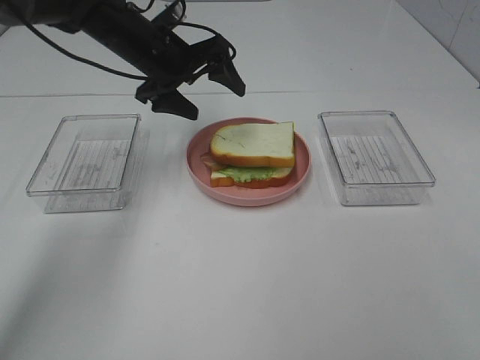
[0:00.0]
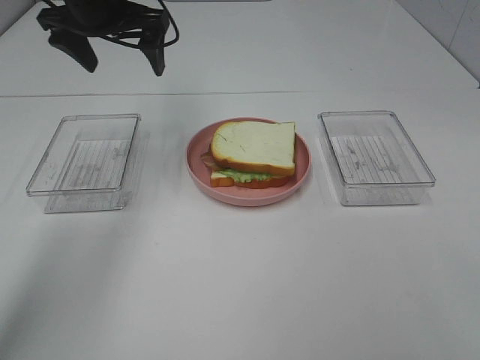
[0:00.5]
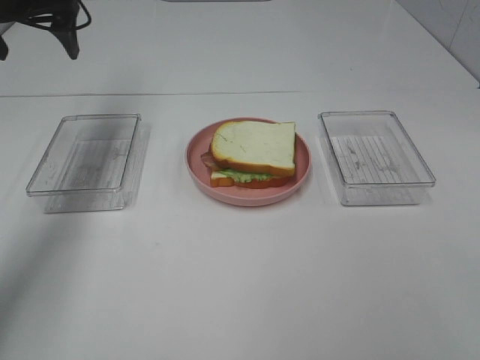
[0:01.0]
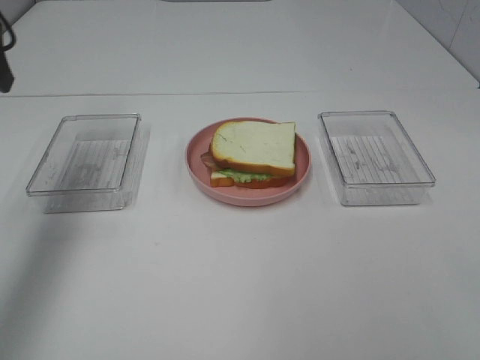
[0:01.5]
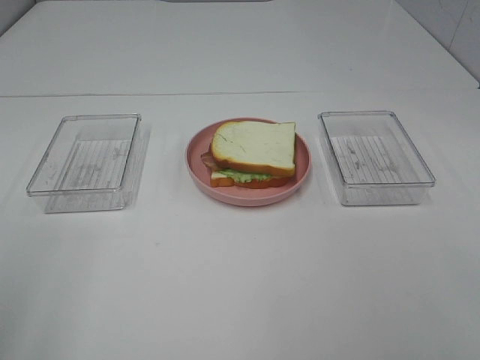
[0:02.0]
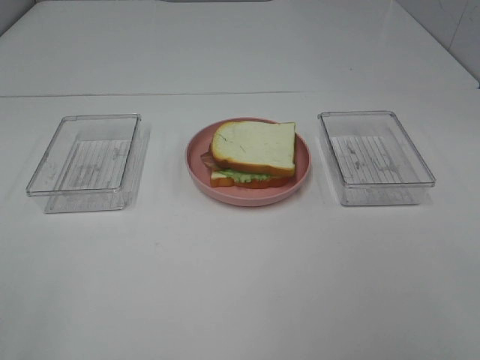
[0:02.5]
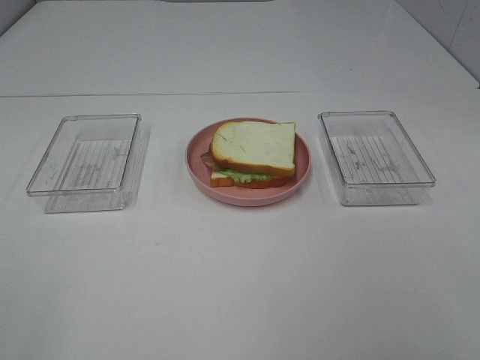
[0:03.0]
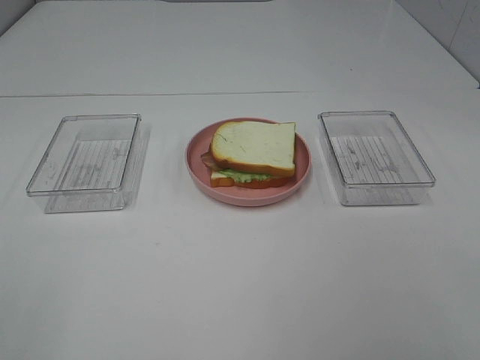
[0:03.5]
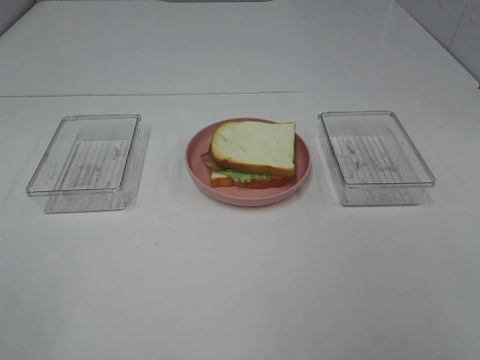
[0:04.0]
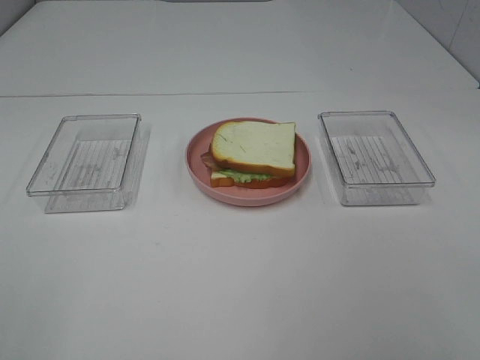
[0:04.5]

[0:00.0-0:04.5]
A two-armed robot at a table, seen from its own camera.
Task of the whole recording: Make sandwiches.
0:00.0 to 0:02.0: The left gripper travels backward and to the left by approximately 50 cm.

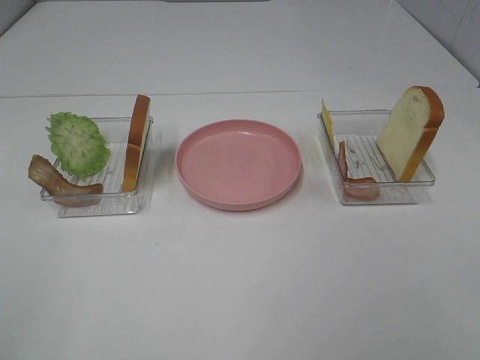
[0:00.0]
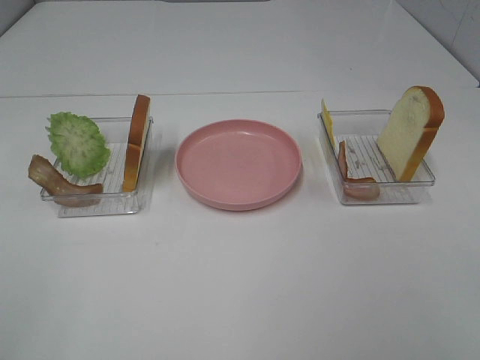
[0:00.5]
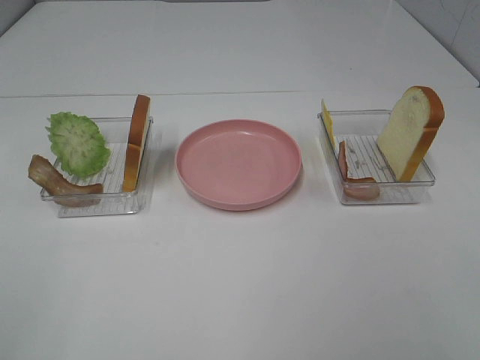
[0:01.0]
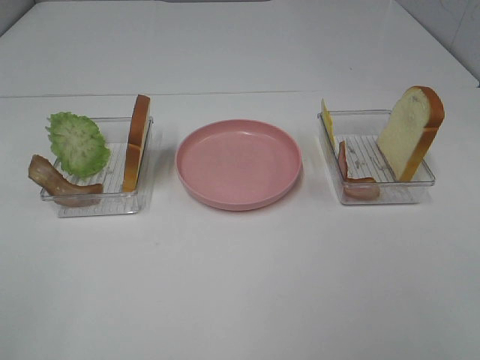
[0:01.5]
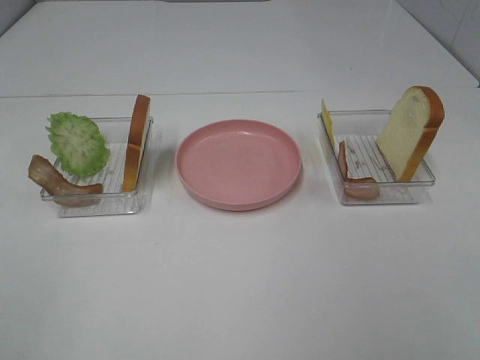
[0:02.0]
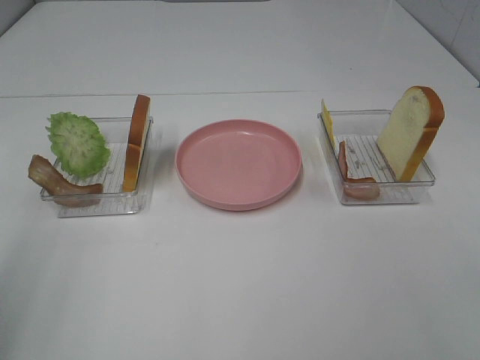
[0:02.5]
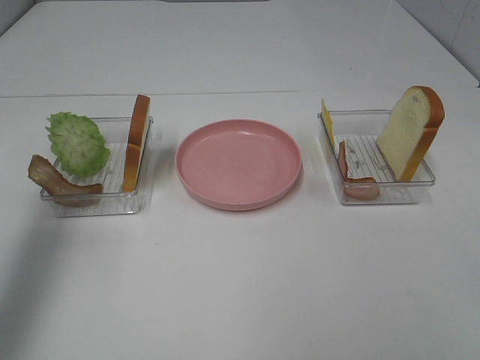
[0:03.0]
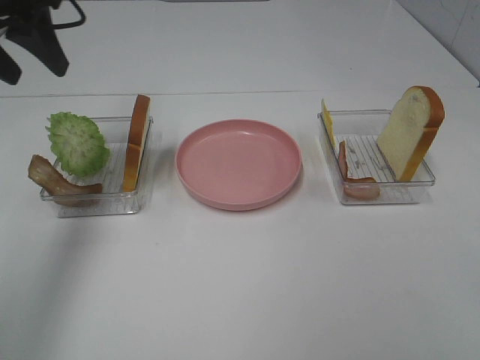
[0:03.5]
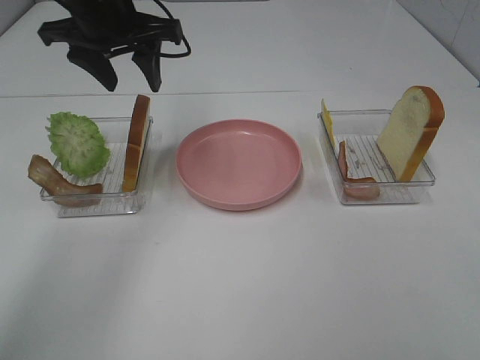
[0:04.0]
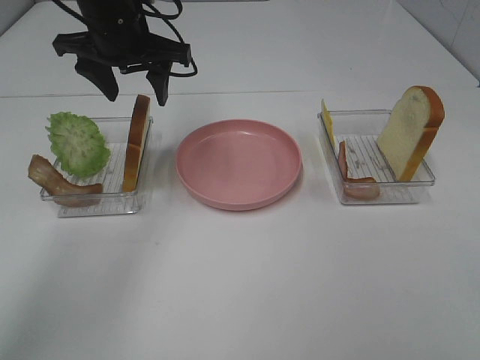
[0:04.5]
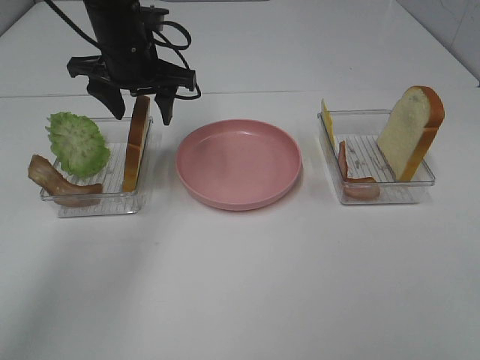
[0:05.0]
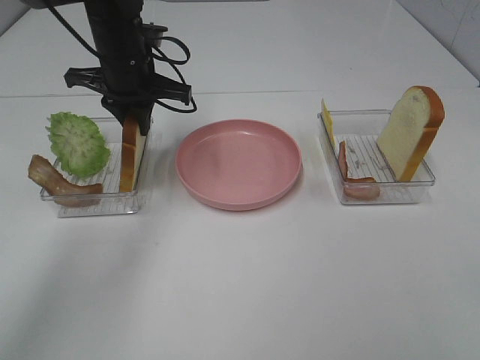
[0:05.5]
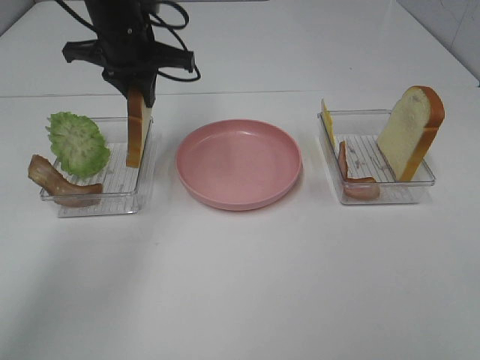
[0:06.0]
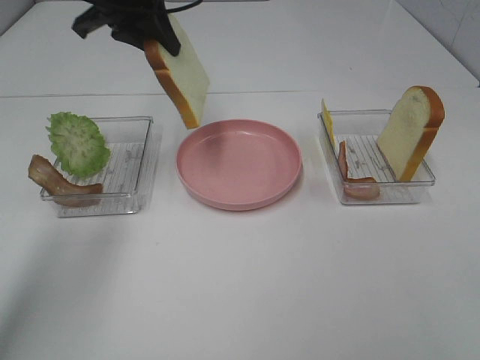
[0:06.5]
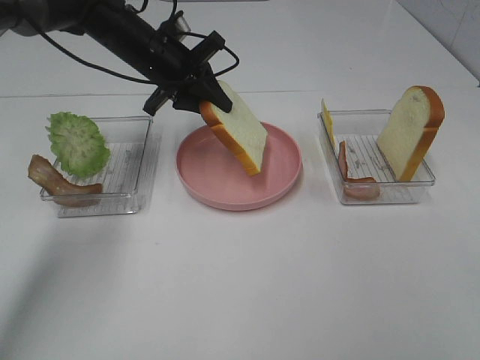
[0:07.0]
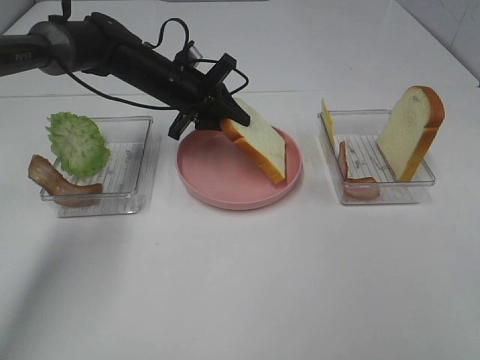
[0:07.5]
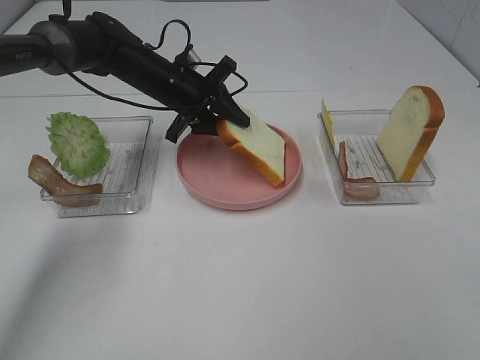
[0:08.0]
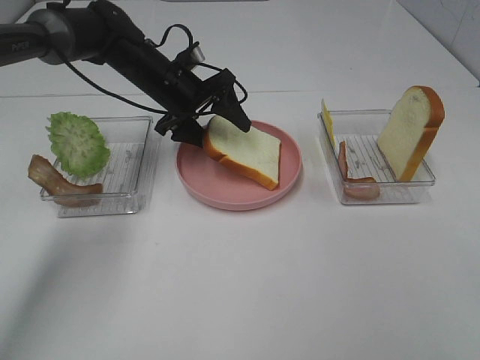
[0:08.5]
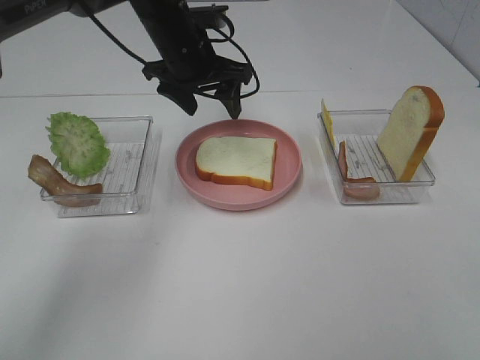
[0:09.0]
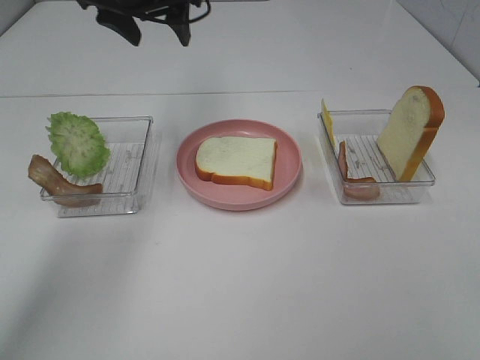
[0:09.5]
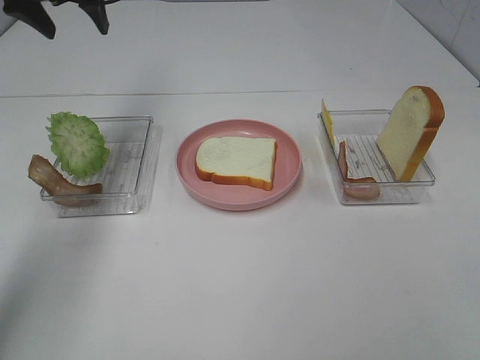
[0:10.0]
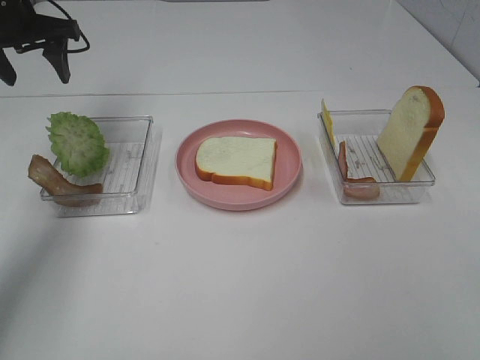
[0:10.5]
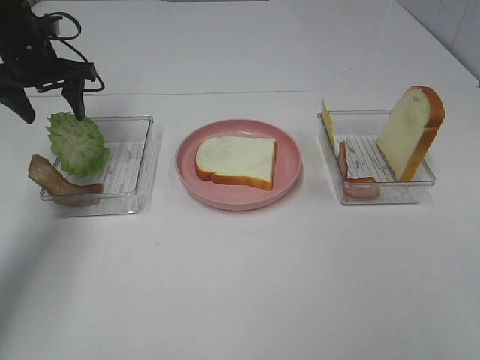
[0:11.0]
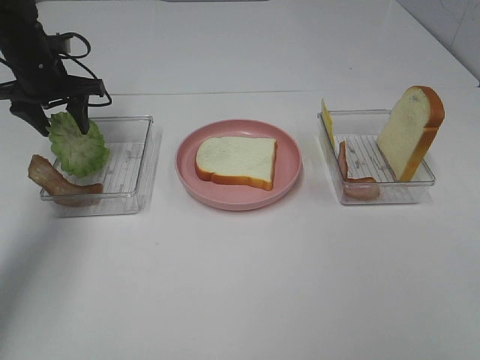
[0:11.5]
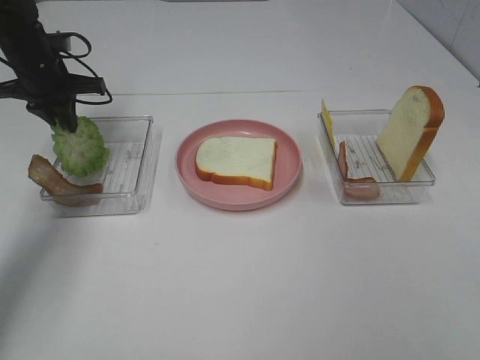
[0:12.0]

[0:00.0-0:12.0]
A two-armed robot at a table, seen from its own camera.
Task of the whole recording: Make sandwiches.
Step, 0:00.0 to 0:05.5: Left hand:grab the bread slice.
Step, 0:06.0 to 0:09.0: Left hand:place the bread slice on the plate.
0:02.0 to 0:04.0: The left gripper goes approximately 40 cm forward.
0:04.0 to 0:06.0: The left gripper reaches some 10 cm downward, then returns, and closes.
0:06.0 to 0:08.0: The left gripper moves downward, approximately 10 cm.
0:08.0 to 0:10.0: The left gripper goes about 20 cm upward and to the left, and opens its fingers.
0:10.0 to 0:12.0: The left gripper moves downward, about 15 cm, and closes up.

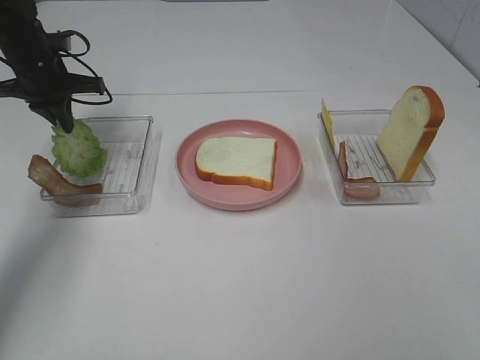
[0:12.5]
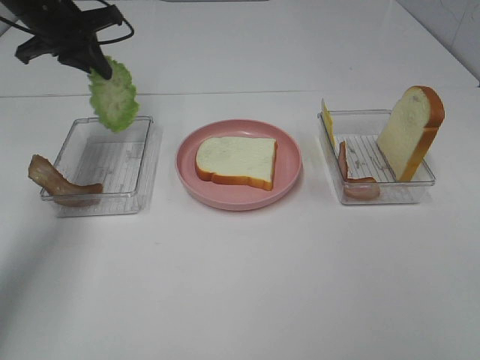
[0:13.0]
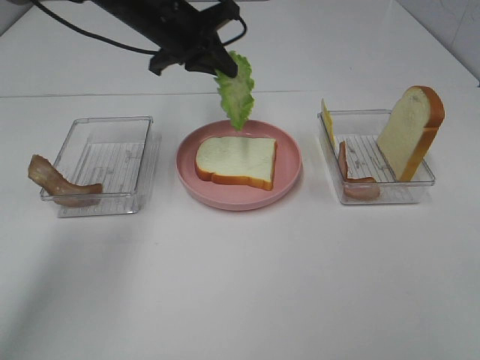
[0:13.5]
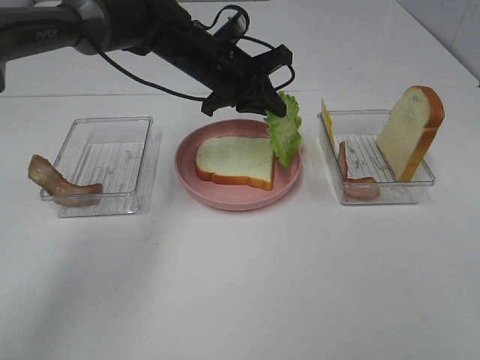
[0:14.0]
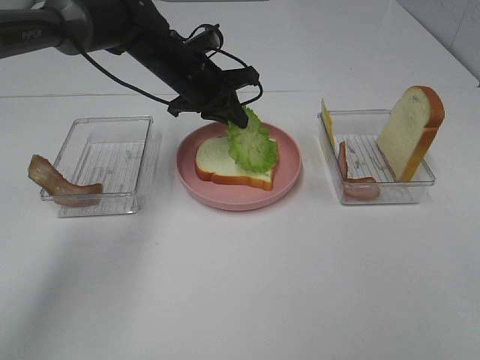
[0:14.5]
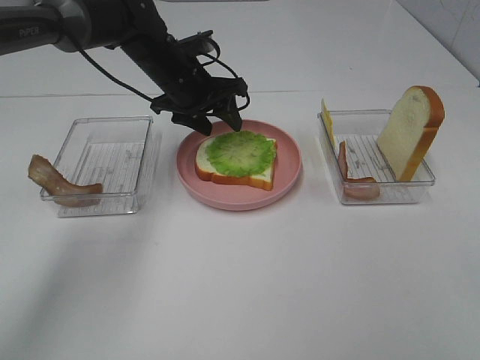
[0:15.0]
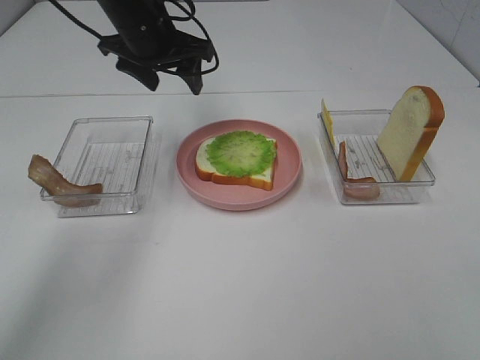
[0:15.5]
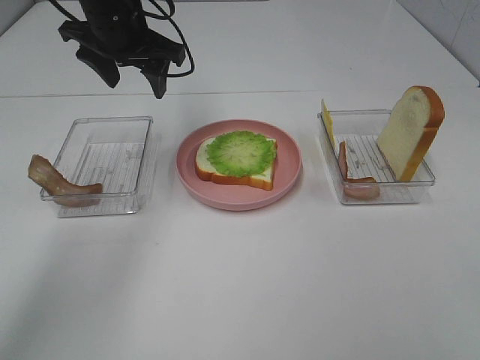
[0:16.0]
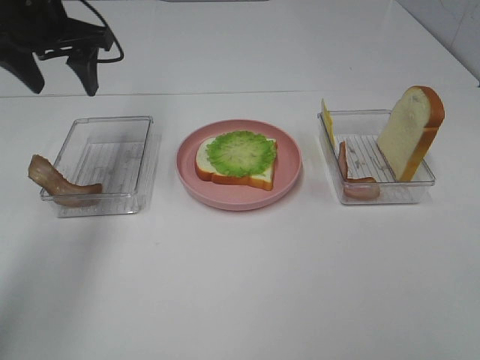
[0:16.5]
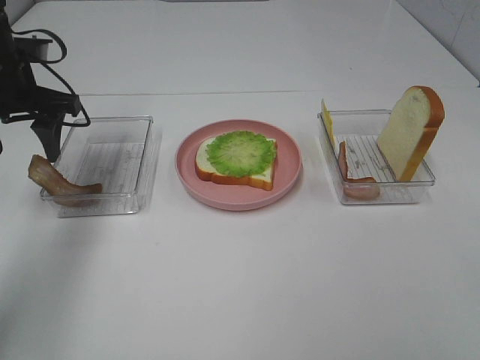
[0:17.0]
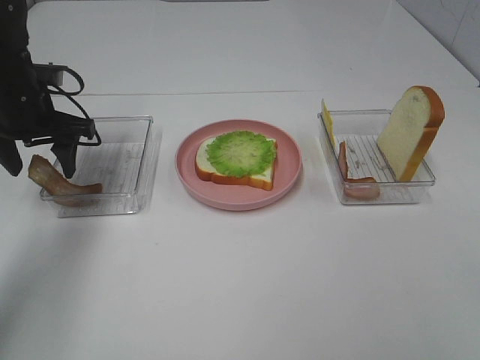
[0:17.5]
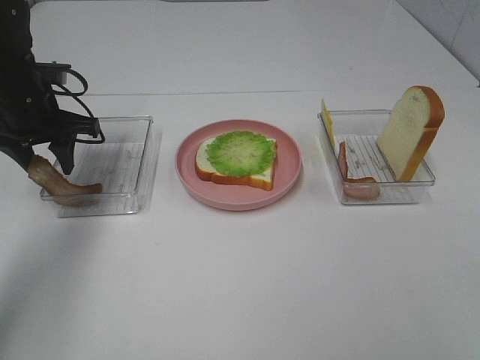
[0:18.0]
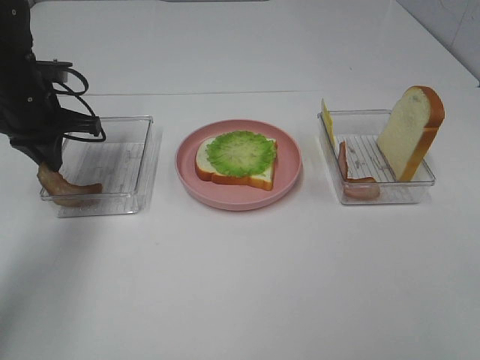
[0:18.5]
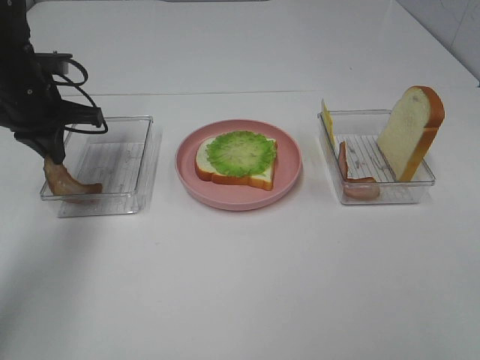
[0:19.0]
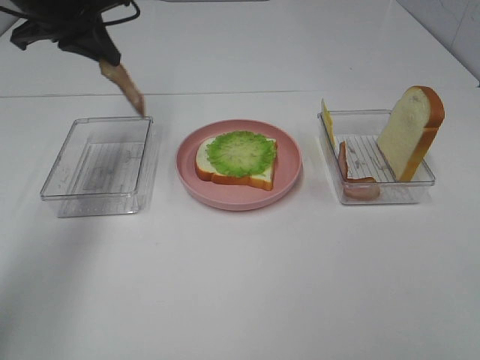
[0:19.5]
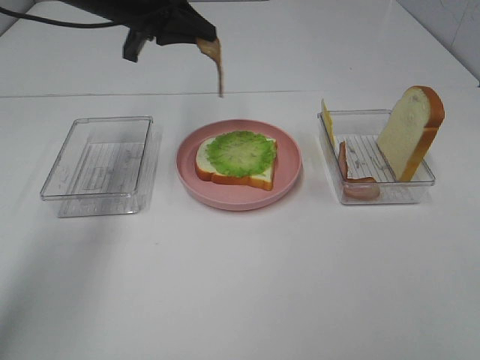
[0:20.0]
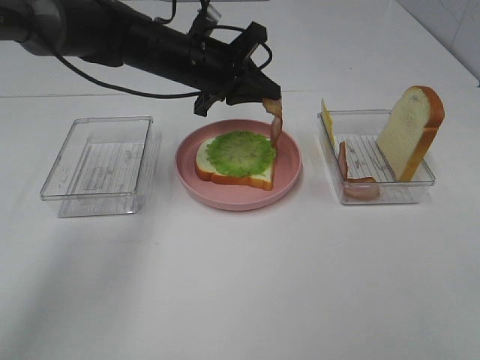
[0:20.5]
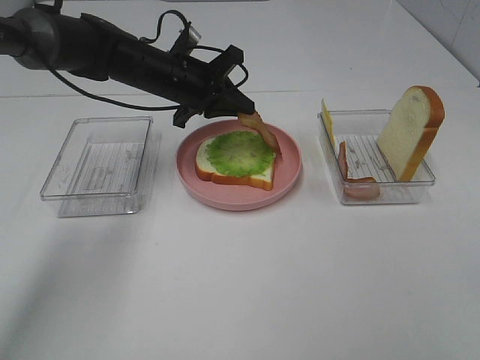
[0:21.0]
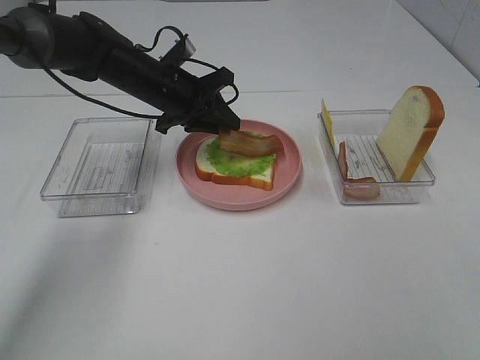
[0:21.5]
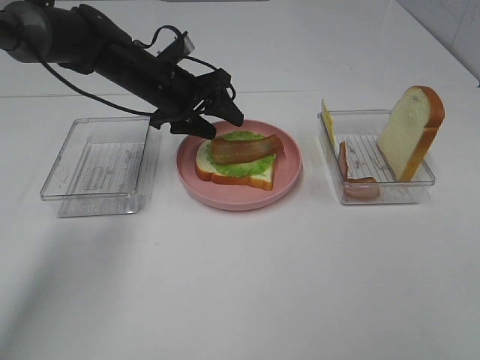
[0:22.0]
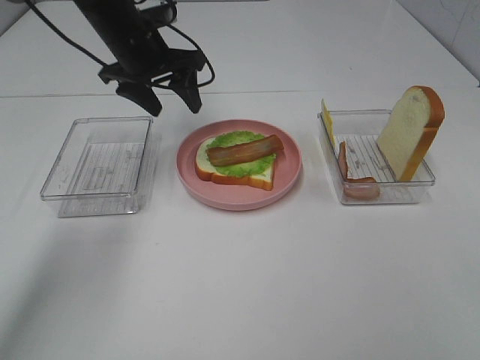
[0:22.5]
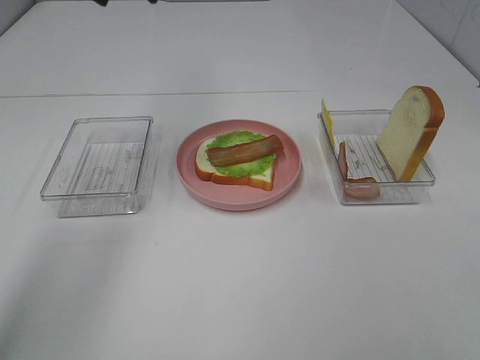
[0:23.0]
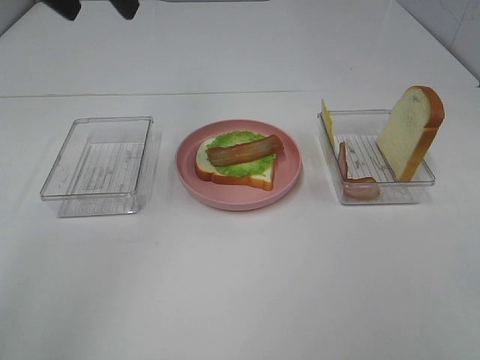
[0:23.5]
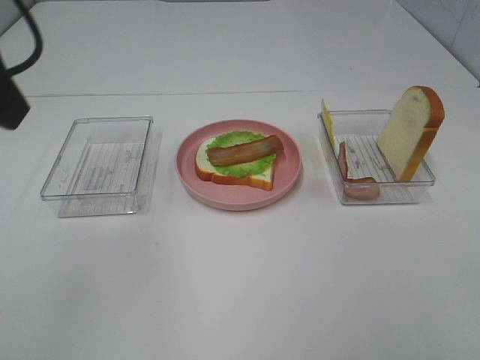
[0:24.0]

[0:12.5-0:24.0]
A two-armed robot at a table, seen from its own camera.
Task of the whole recording: Make sandwiches.
Step, 0:12.5 to 0:15.0: Left hand:place the lettuce slice on the bread slice.
Step, 0:15.5 to 0:18.5: Left hand:grab the bacon.
Step, 0:19.0 to 0:22.0: Left hand:place bacon on lettuce slice.
0:12.5 to 0:14.5: The left gripper goes roughly 20 cm to the right.
0:14.5 to 0:16.5: The left gripper is displaced to the left and upward by approximately 20 cm, and opens up.
0:16.5 to 0:18.5: The left gripper goes approximately 10 cm downward, and closes.
0:18.5 to 0:20.0: The left gripper is displaced to the right and upward by some 15 cm.
0:20.0 to 0:22.0: The left gripper moves downward, roughly 10 cm, and opens its fingers.
0:22.0 to 0:24.0: The left gripper goes about 35 cm backward and upward.
